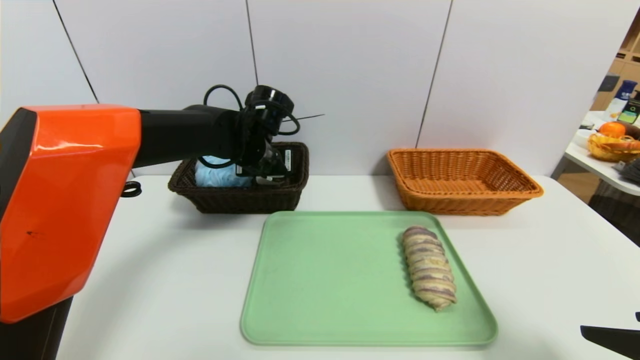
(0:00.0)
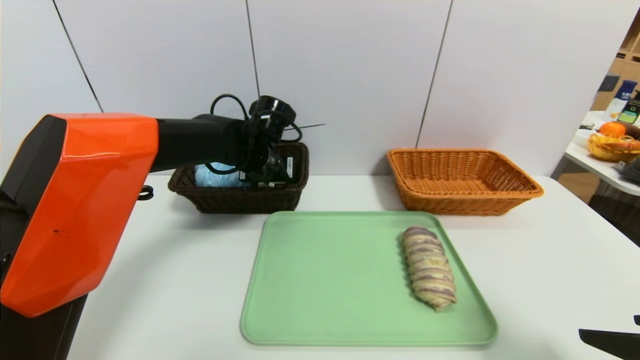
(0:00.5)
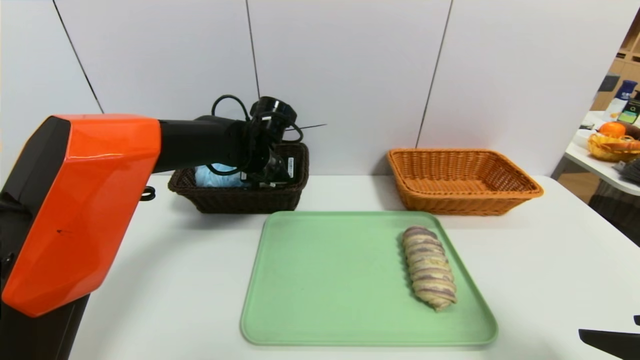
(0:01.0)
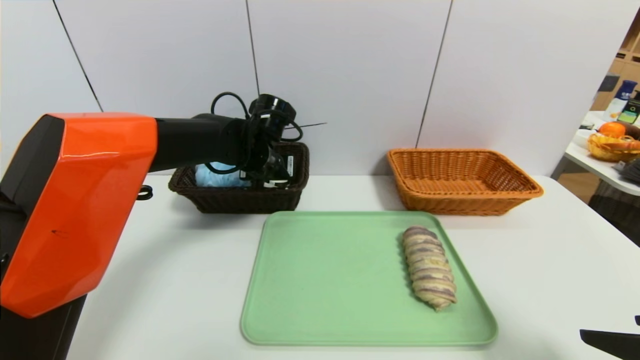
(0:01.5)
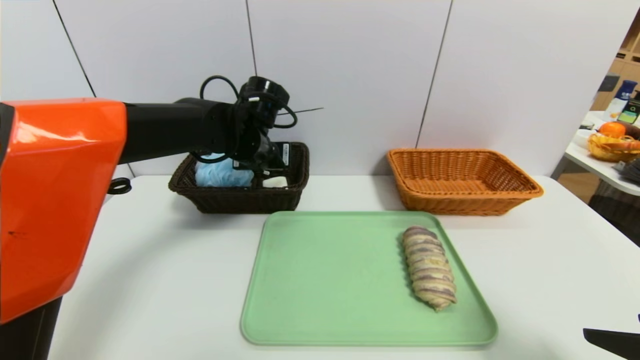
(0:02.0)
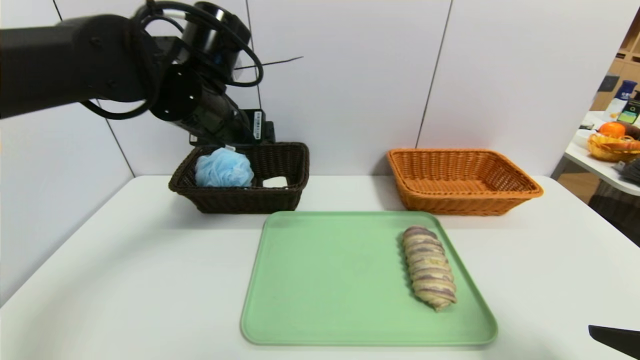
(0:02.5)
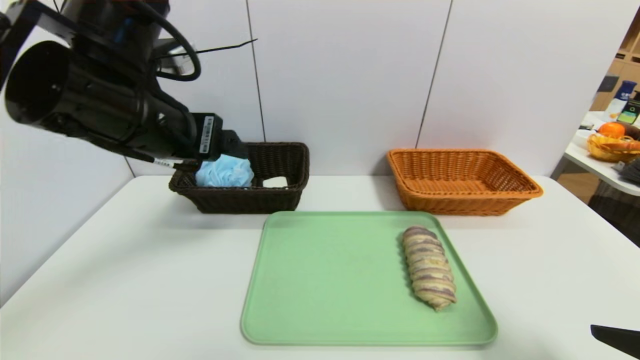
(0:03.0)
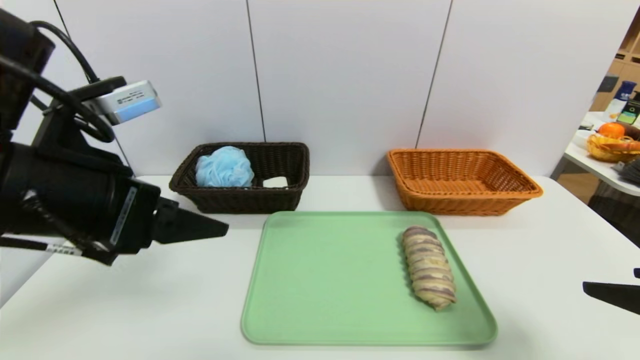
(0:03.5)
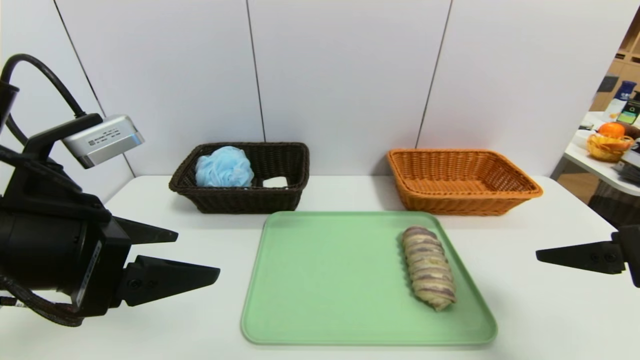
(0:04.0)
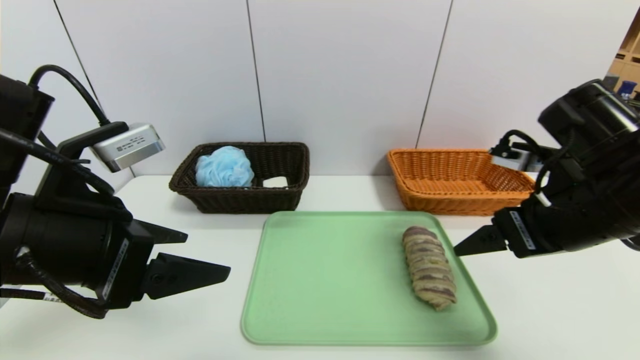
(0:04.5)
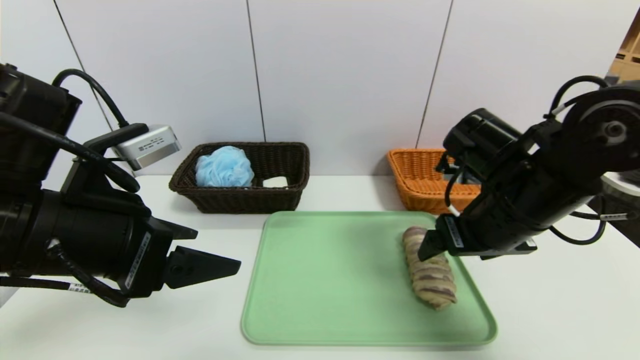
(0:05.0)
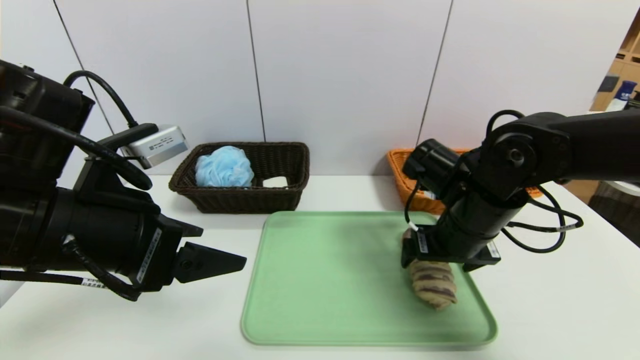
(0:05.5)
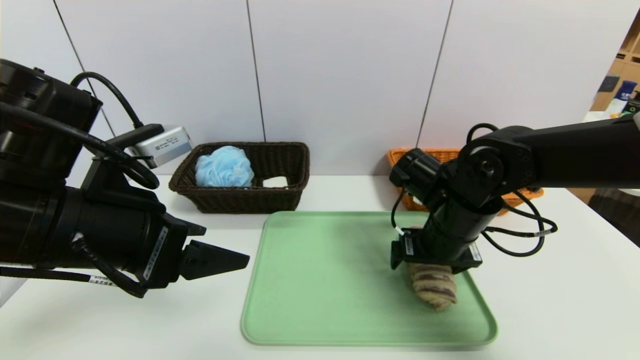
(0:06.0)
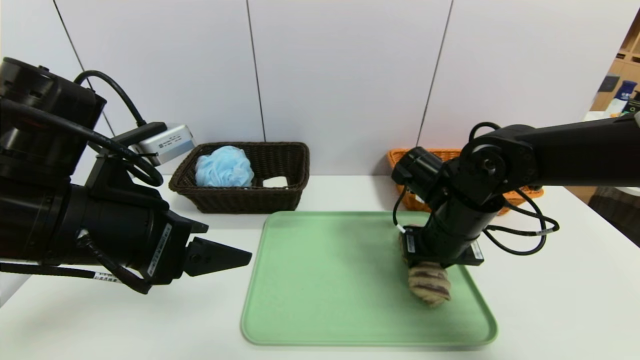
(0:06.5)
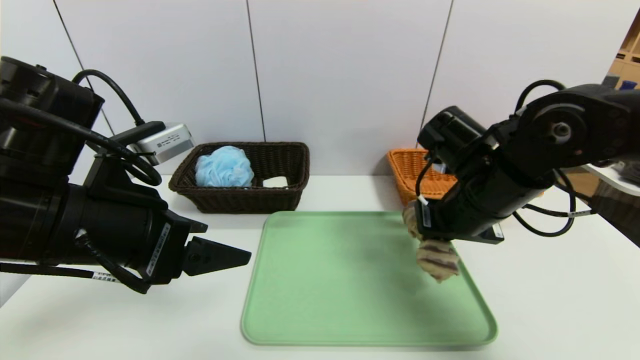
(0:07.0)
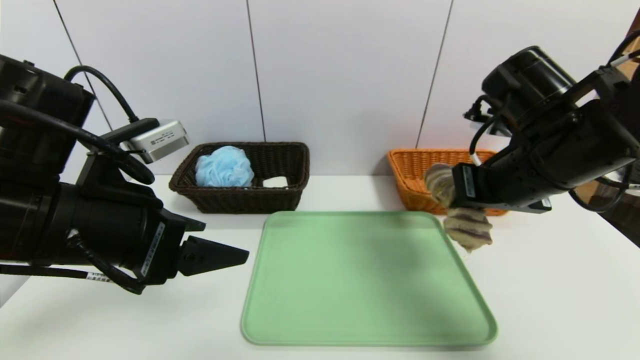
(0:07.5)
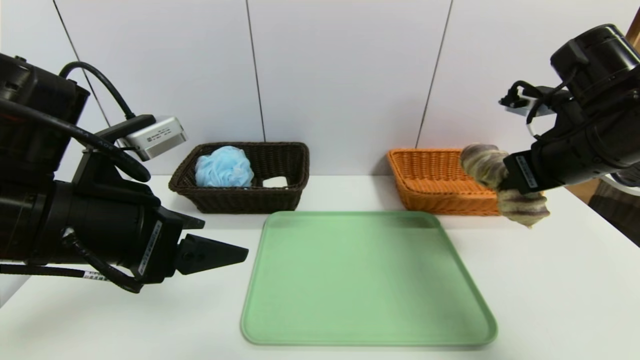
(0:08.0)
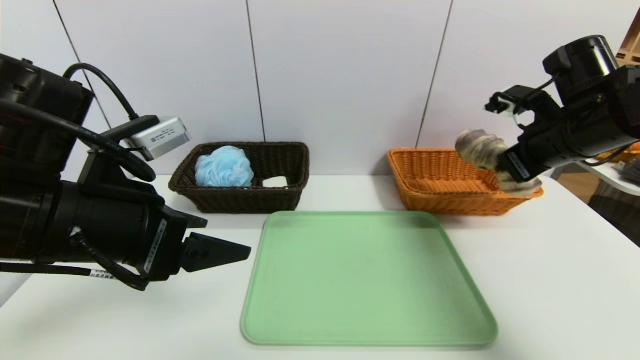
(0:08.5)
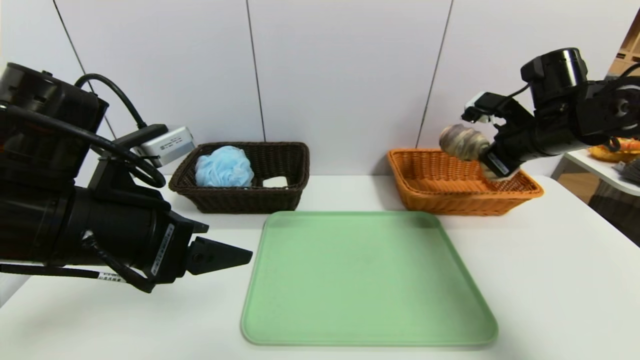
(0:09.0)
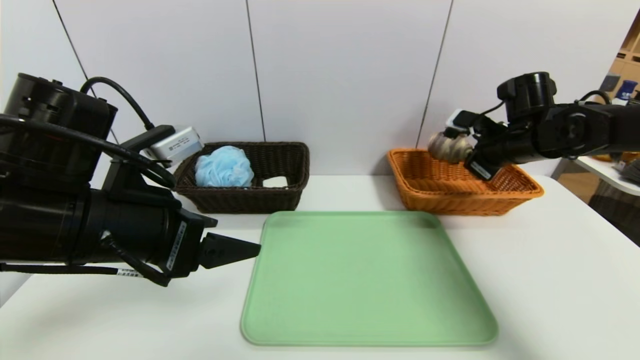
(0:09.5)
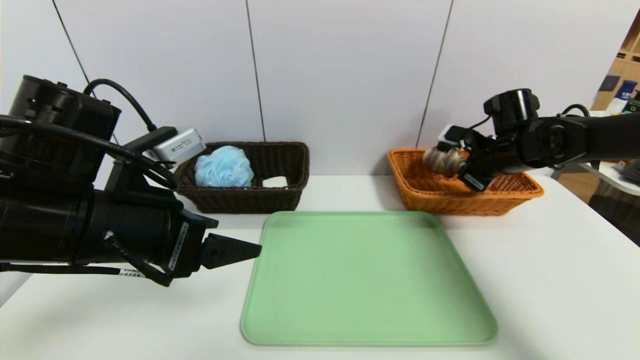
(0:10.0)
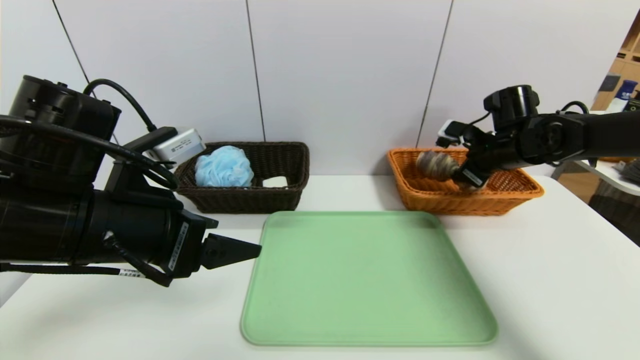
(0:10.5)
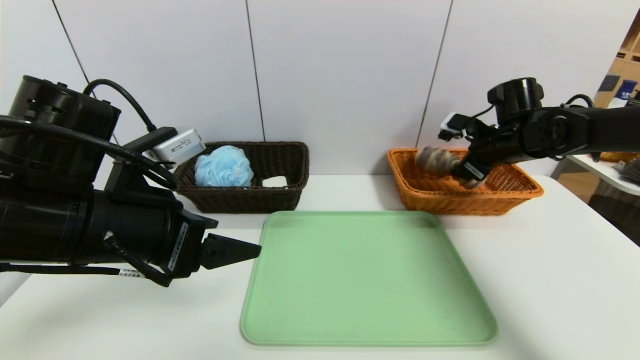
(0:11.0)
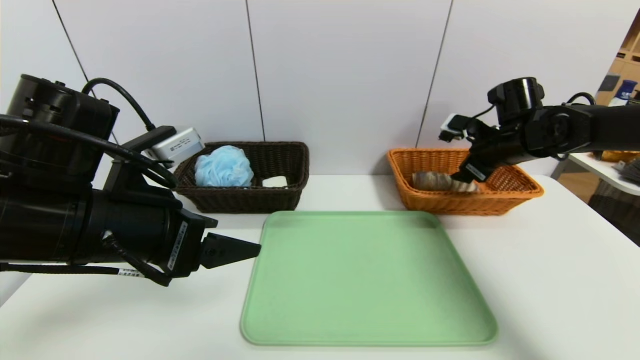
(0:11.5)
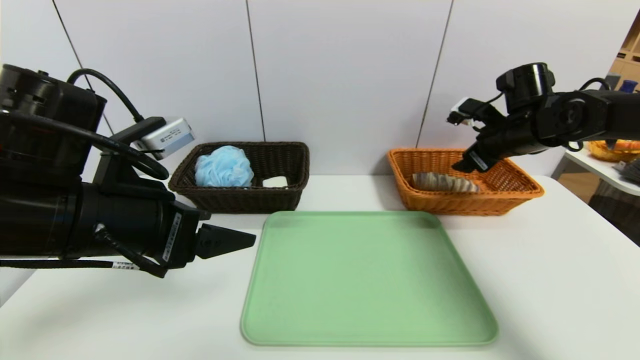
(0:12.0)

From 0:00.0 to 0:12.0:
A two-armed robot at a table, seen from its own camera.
Task of the whole recording: place the food in the right basket with the right gripper, and place the non food items in the left basket with the left gripper.
Step, from 0:02.0 to 0:11.5: Grasp the long bread and put it in the right basket.
From 0:00.0 to 0:02.0: The left gripper opens.
From 0:02.0 to 0:04.0: The right gripper travels forward by about 5 cm; the left gripper heads backward and to the left, covering approximately 30 cm.
From 0:04.0 to 0:06.0: The right gripper travels to the left, forward and downward by approximately 25 cm.
From 0:06.0 to 0:08.0: The right gripper goes roughly 15 cm upward and to the right, and closes.
From 0:08.0 to 0:10.0: The right gripper goes approximately 15 cm forward and downward.
From 0:10.0 to 0:12.0: The right gripper opens up.

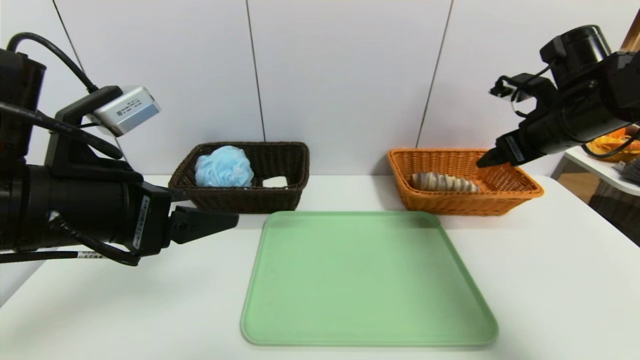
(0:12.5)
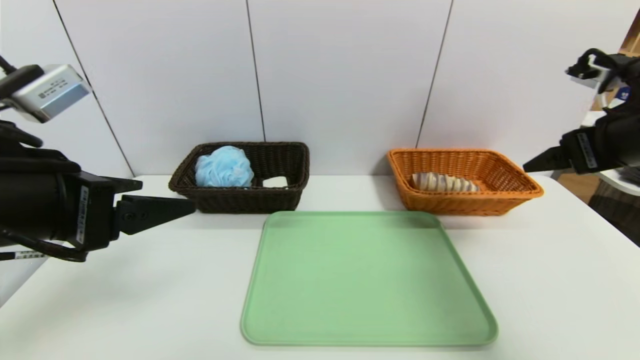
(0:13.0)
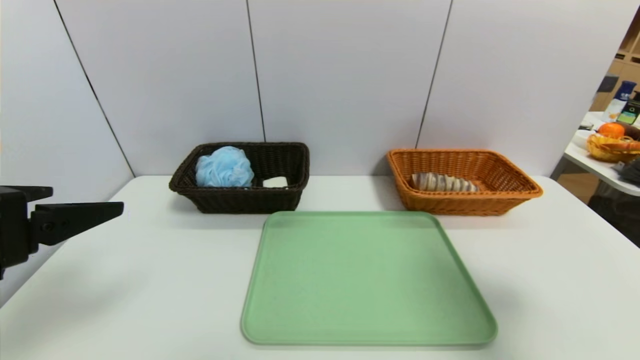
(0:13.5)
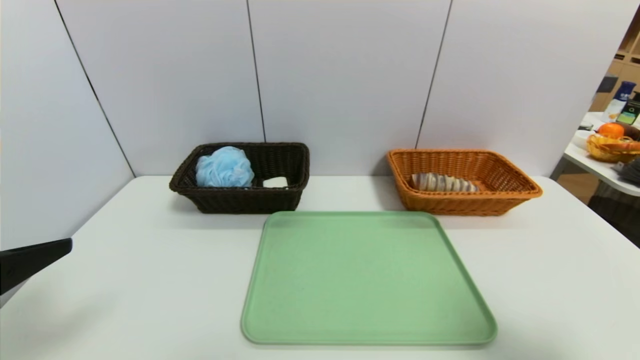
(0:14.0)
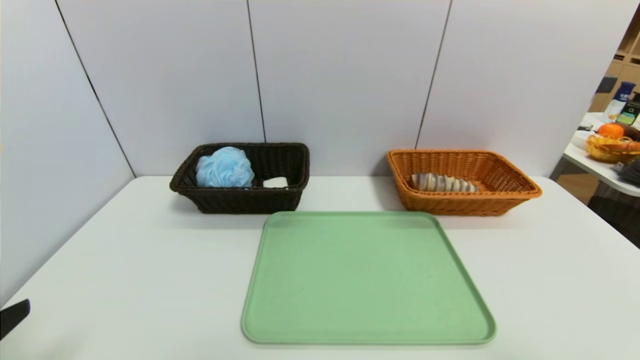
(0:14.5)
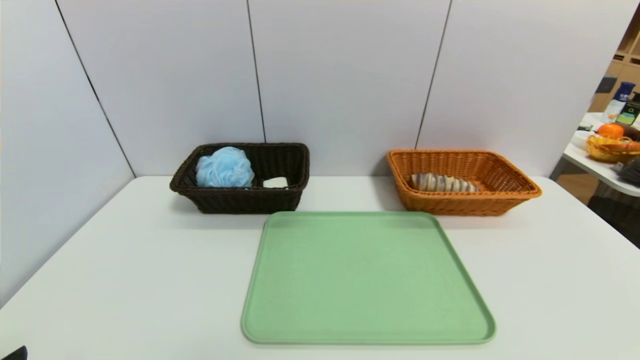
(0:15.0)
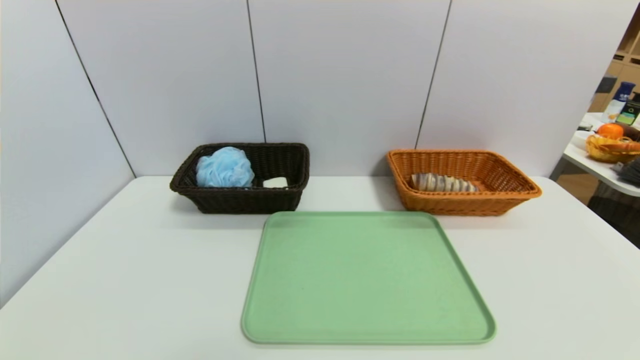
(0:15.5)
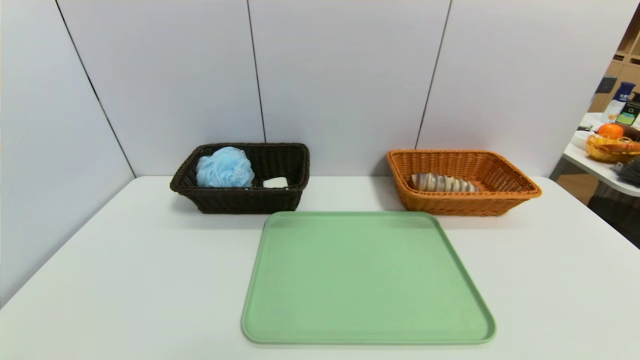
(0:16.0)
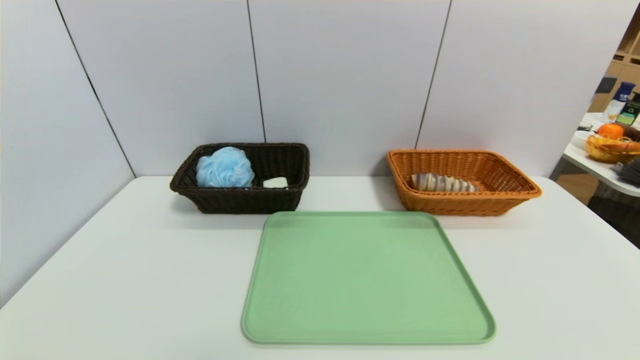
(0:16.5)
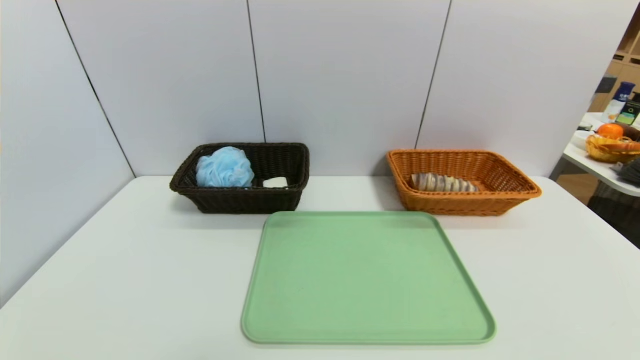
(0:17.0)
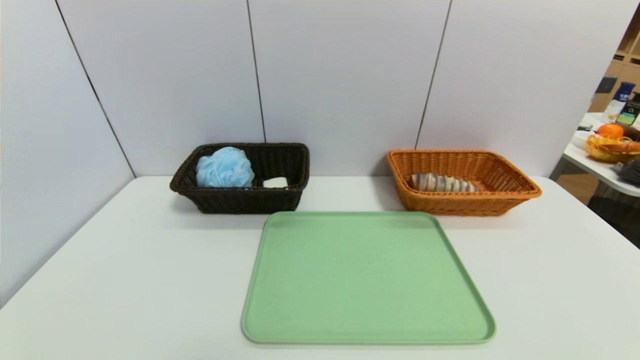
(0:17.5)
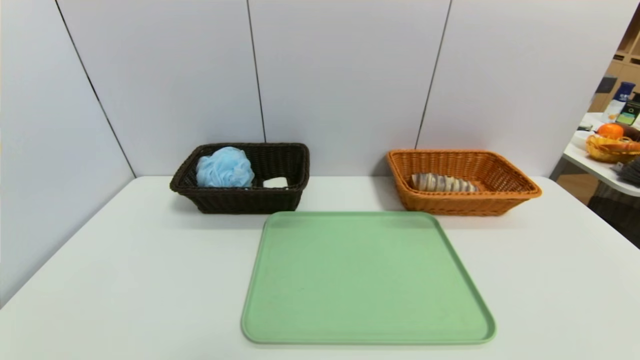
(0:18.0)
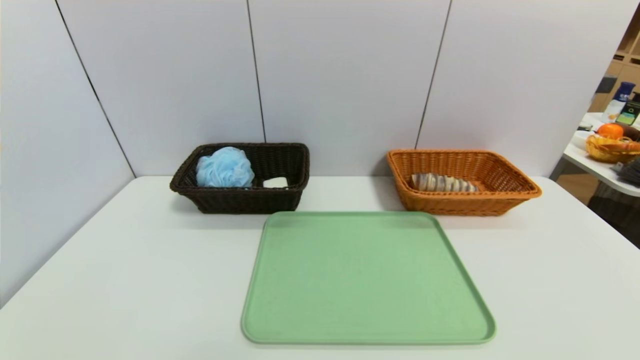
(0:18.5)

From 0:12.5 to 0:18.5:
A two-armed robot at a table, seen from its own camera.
Task of the whole recording: place the food in the right basket with the right gripper, and place the non food items in the left basket with the left gripper.
From 0:12.5 to 0:14.5: The right gripper shifts approximately 35 cm backward. The left gripper travels backward and to the left by approximately 15 cm.
